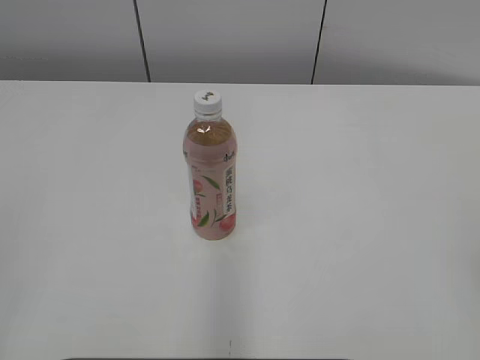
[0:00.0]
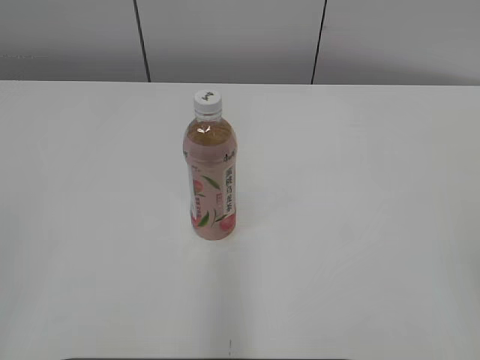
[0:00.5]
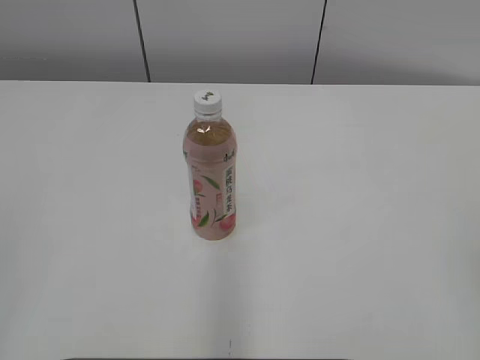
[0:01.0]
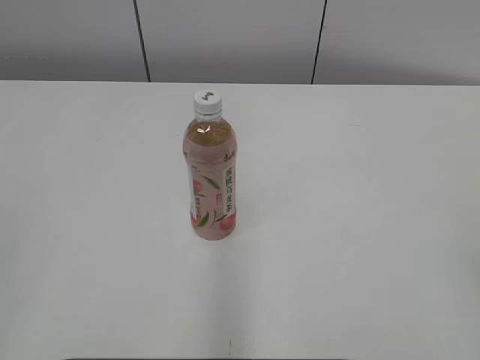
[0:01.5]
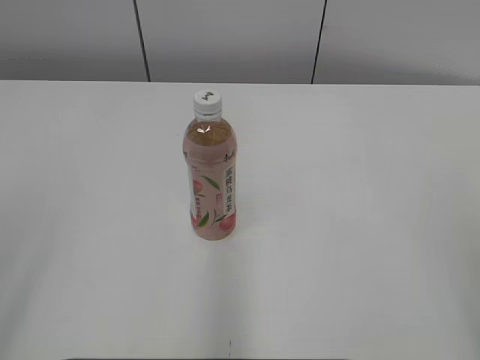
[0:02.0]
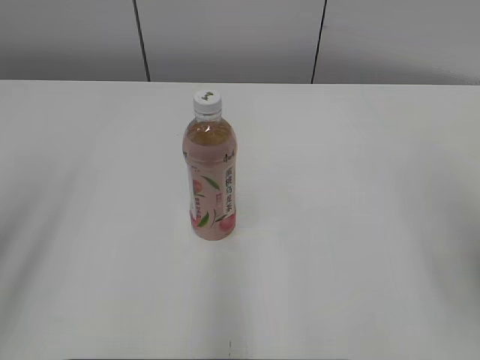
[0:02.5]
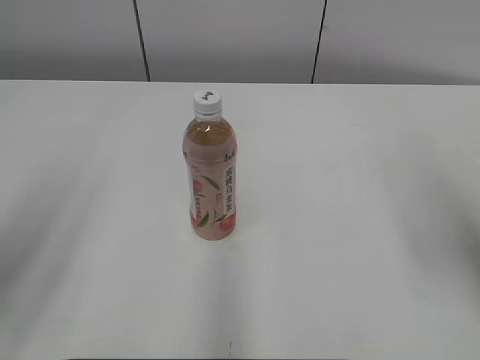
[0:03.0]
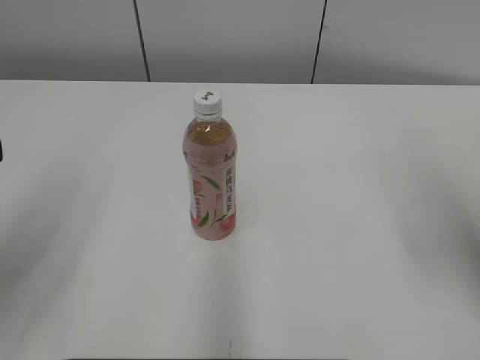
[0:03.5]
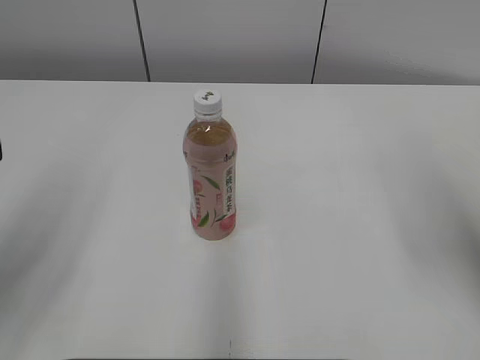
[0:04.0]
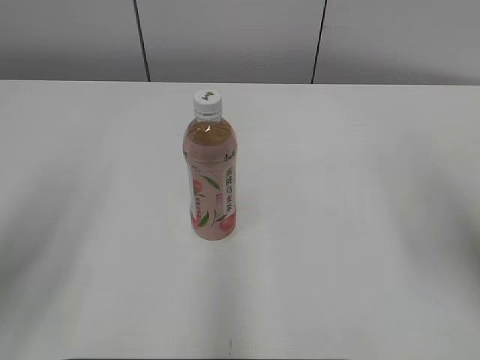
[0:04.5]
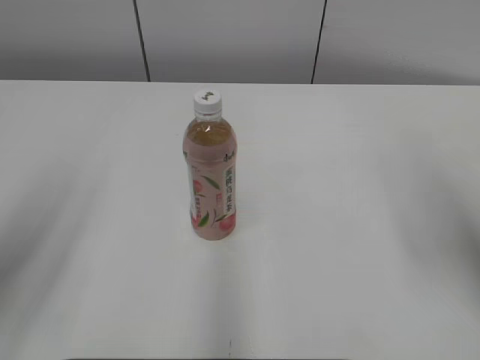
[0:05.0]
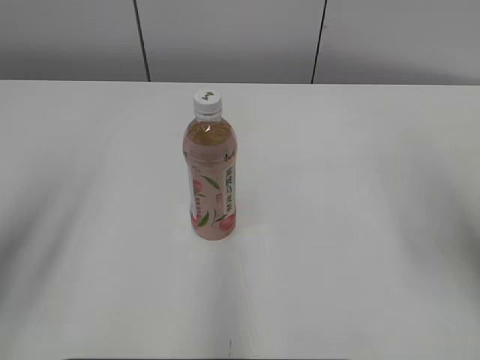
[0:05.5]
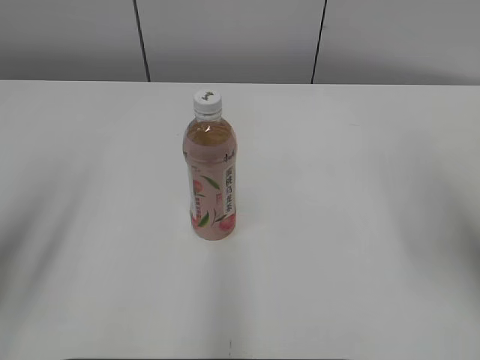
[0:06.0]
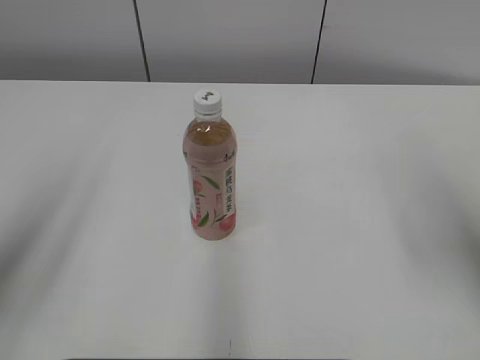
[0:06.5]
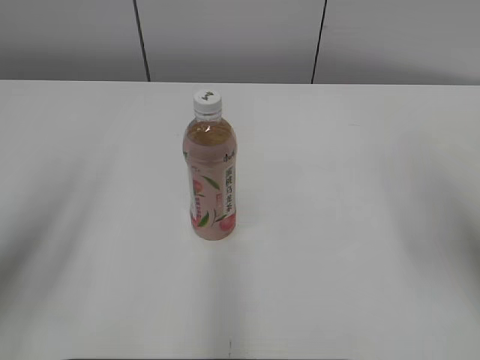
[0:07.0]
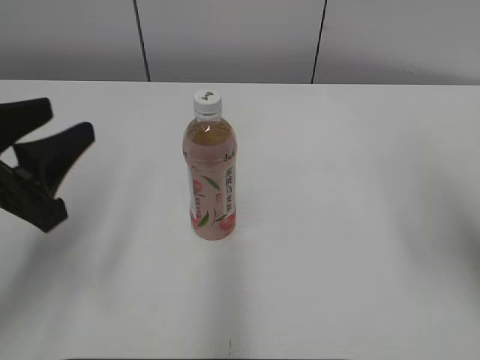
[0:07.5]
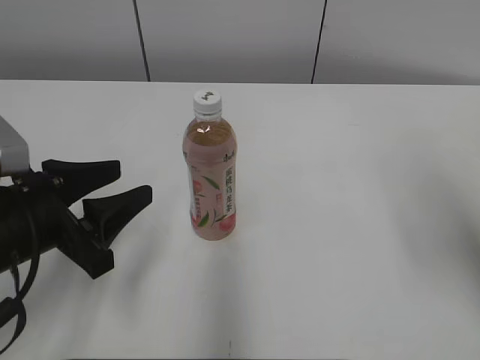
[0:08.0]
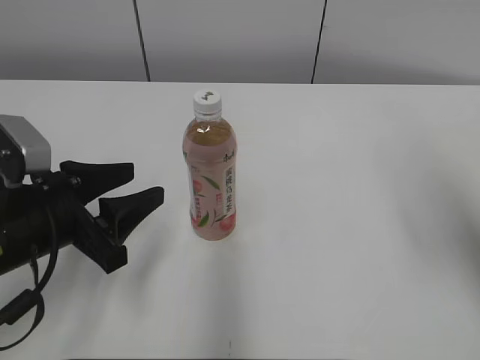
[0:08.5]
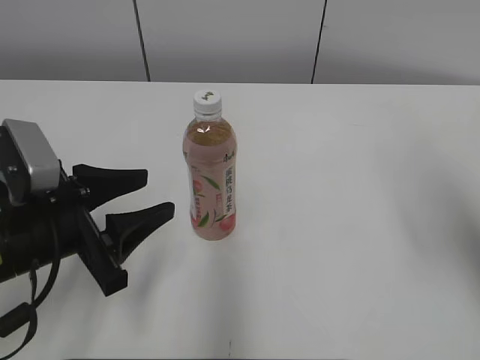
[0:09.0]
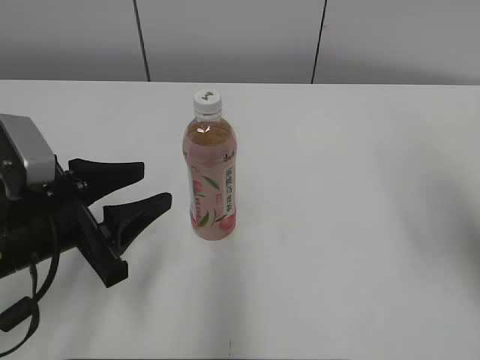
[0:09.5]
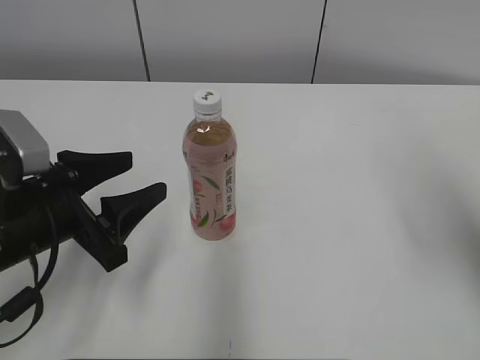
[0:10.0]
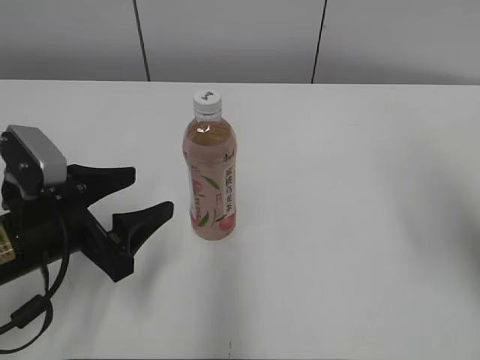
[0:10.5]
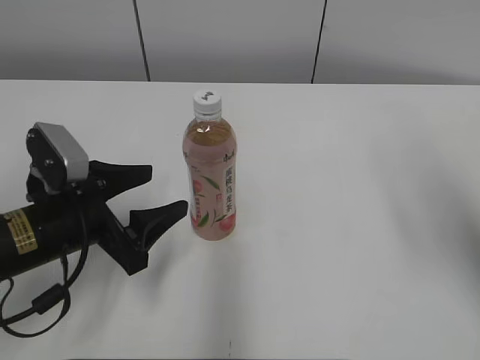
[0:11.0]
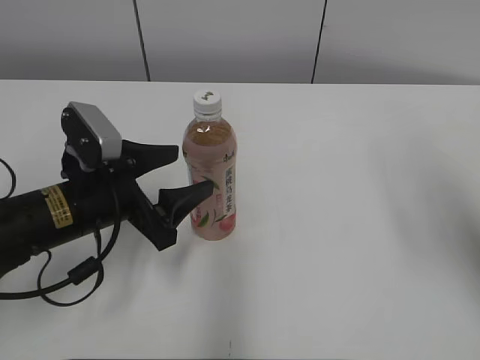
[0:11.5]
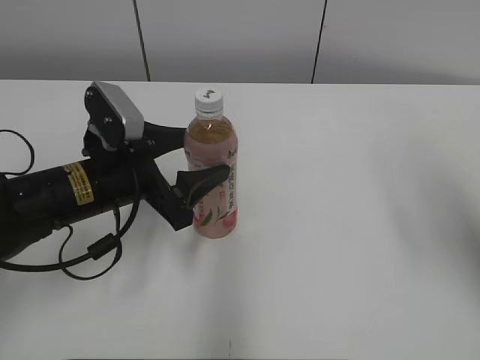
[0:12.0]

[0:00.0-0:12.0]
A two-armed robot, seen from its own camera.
0:02.0 to 0:04.0: The left gripper travels forward and downward by roughly 10 cm. Meanwhile the right gripper travels forward by about 15 cm.
0:06.0 to 0:08.0: The left gripper goes some 15 cm downward, to the right and forward.
0:08.0 to 0:10.0: The grippers stay close to where they were, moving slightly.
0:10.0 to 0:12.0: The left gripper shifts about 5 cm forward.

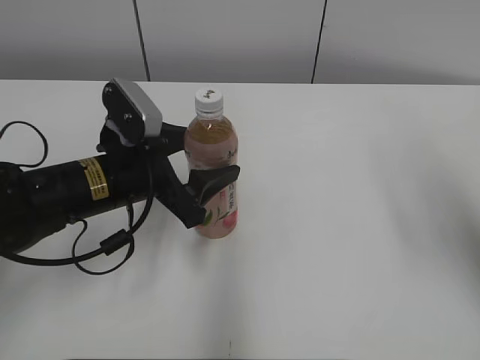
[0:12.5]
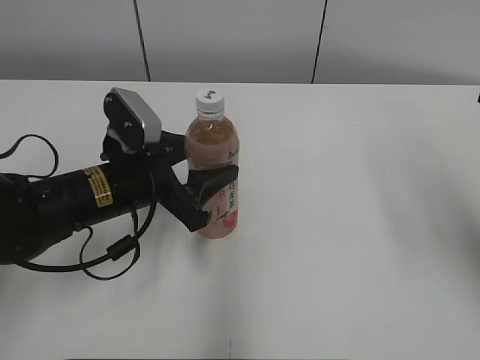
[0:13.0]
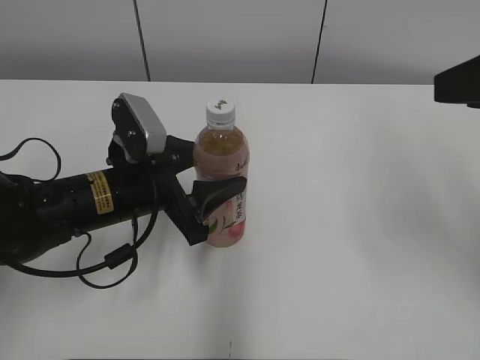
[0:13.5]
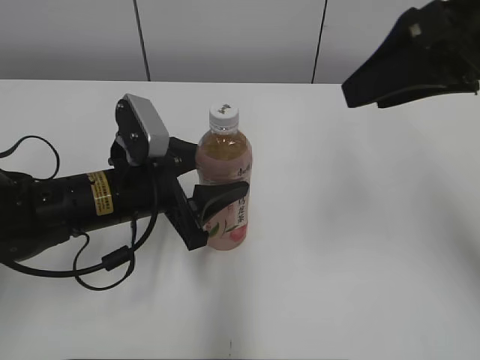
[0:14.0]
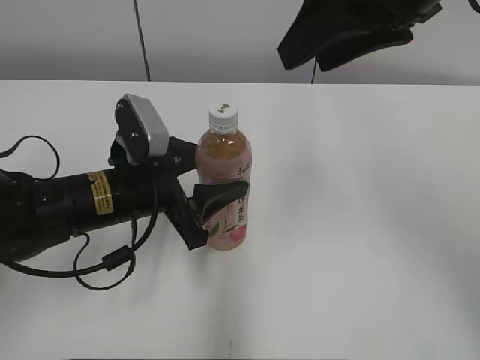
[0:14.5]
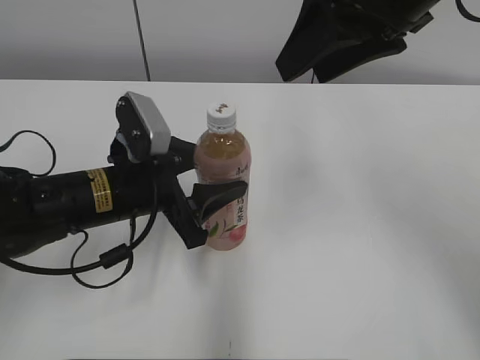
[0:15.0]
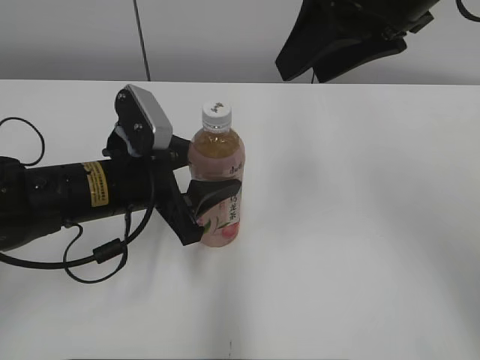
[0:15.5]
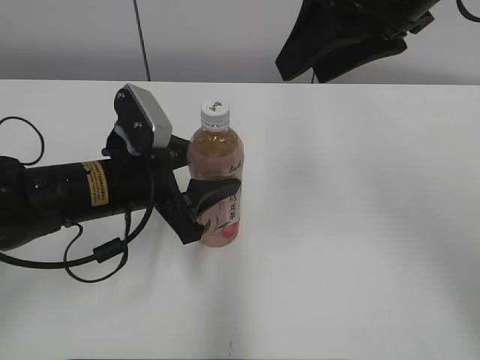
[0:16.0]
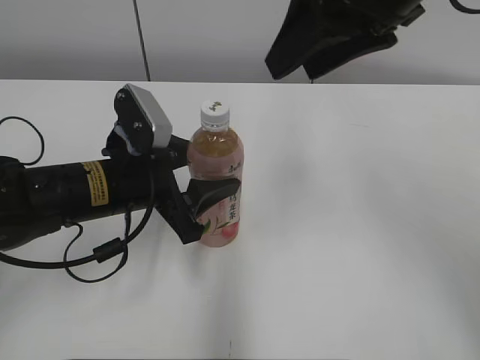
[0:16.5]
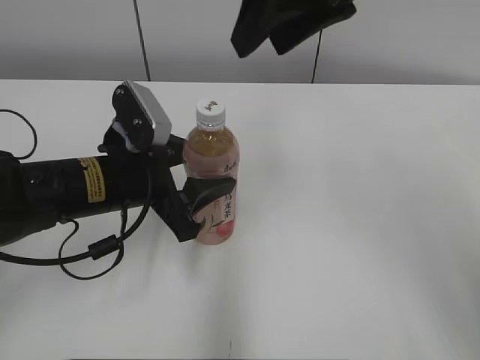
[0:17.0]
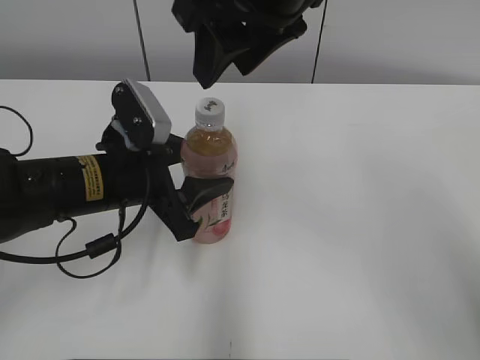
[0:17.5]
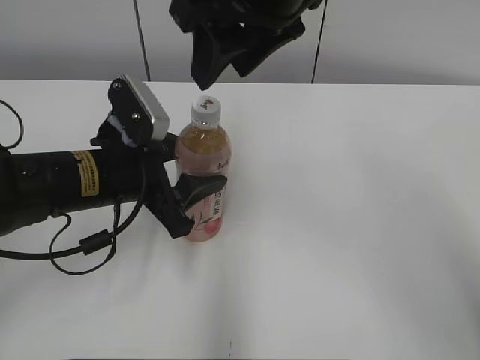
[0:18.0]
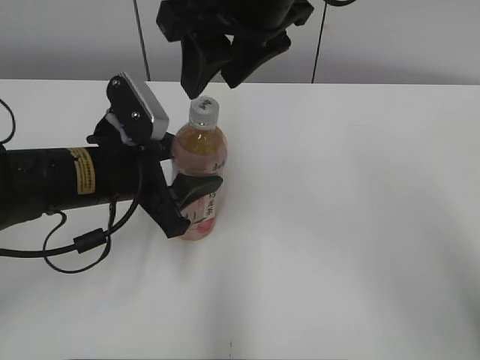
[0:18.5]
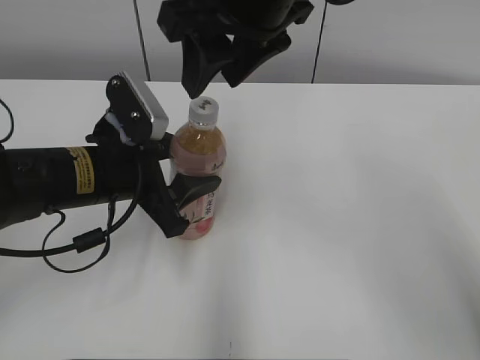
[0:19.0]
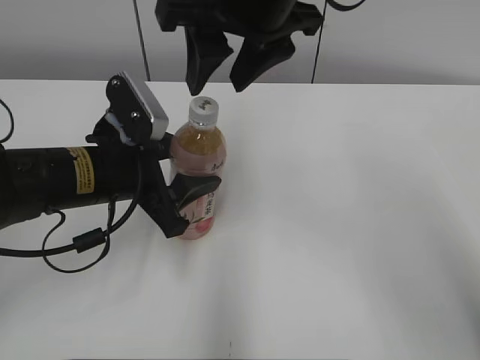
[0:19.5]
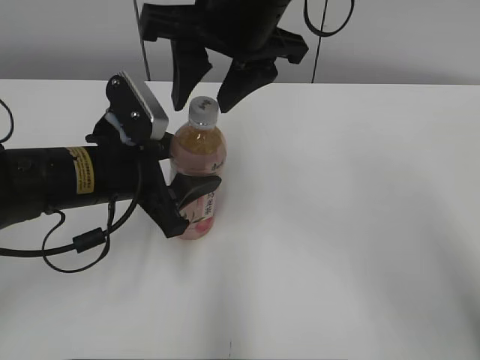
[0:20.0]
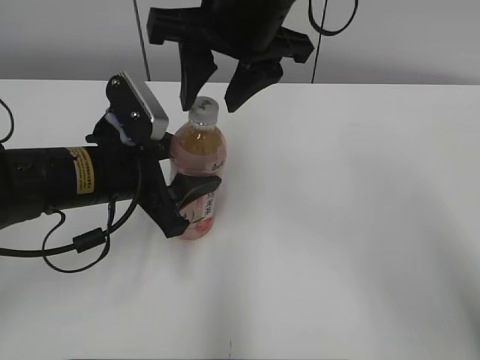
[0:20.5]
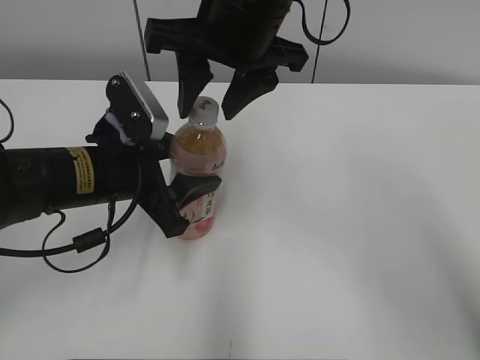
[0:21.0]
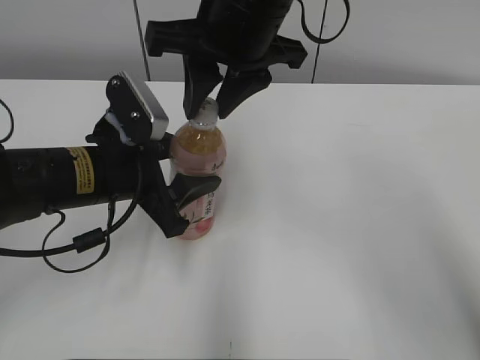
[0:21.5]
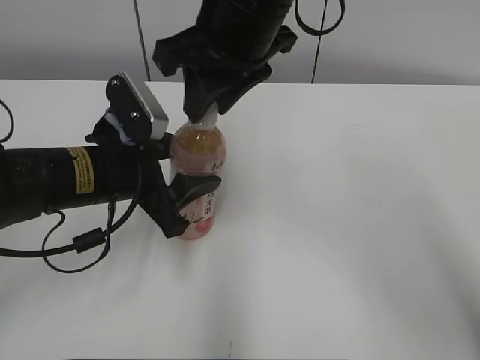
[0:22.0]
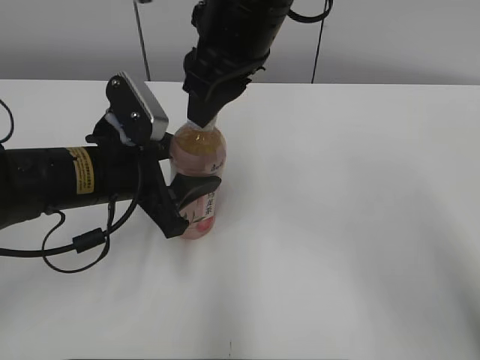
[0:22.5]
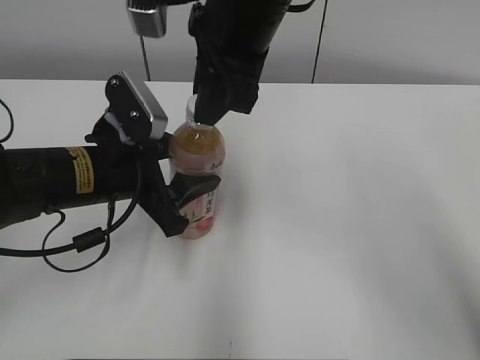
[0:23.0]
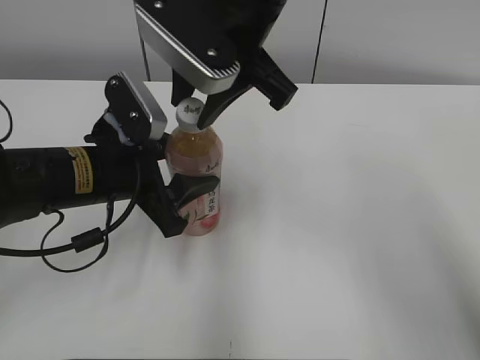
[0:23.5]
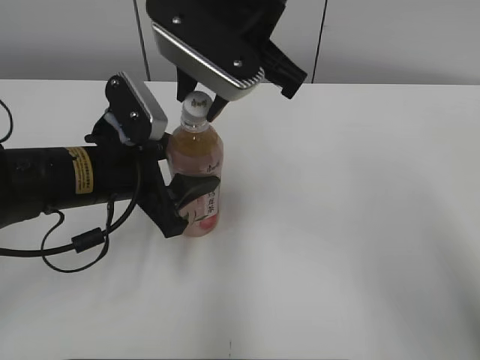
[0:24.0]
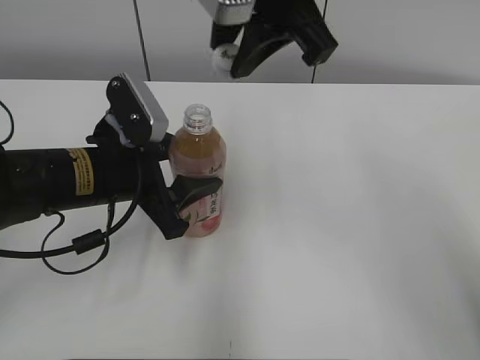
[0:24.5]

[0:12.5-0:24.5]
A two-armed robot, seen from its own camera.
0:12.5 to 0:14.5: The right gripper goes roughly 20 cm to the left, forward and upward.
0:14.5 to 0:16.5: There are only small adjustments of the grippers.
0:16.5 to 0:18.5: The right gripper travels to the left by roughly 10 cm.
0:20.5 to 0:22.5: The right gripper closes up.
0:22.5 to 0:24.5: The right gripper changes place by approximately 5 cm.

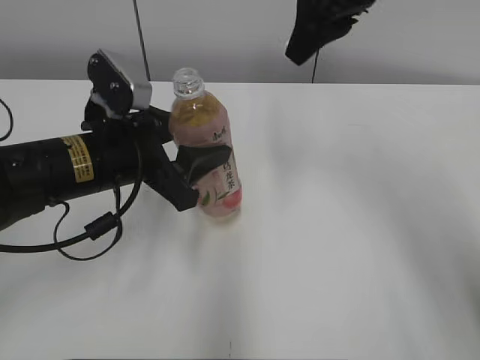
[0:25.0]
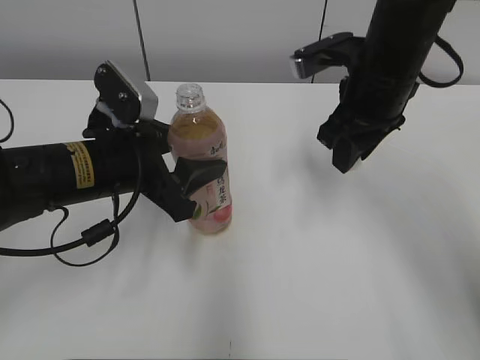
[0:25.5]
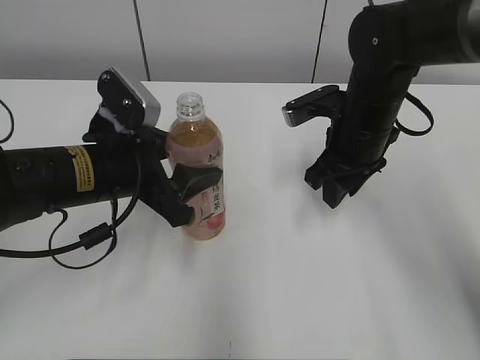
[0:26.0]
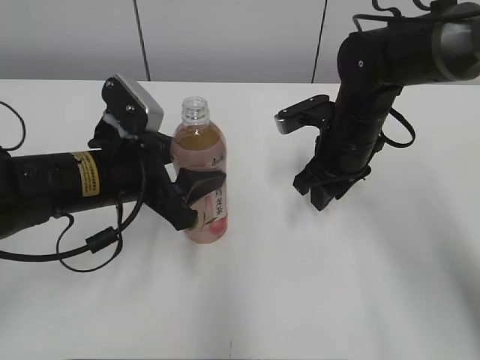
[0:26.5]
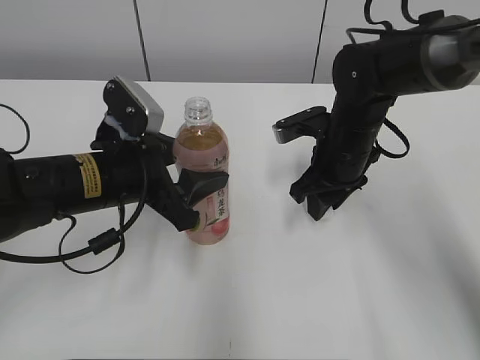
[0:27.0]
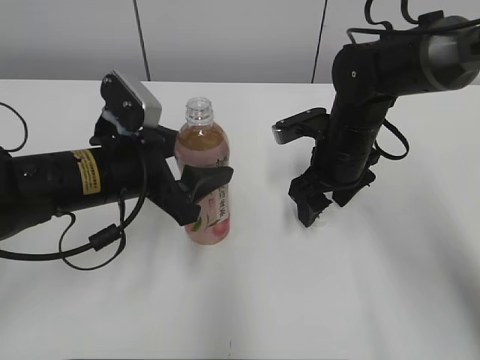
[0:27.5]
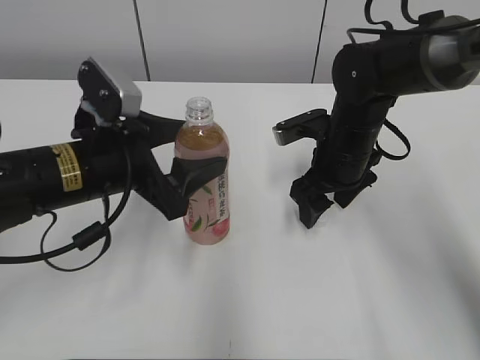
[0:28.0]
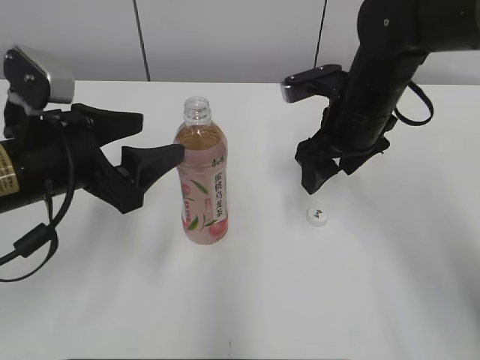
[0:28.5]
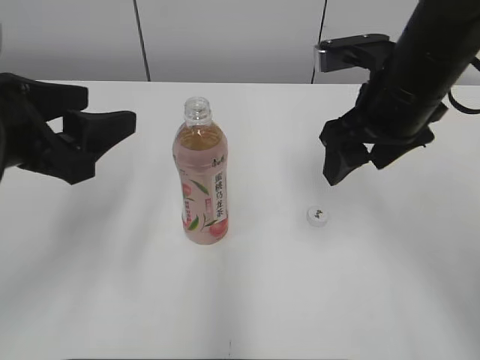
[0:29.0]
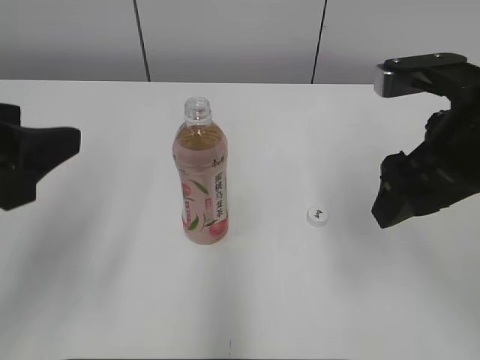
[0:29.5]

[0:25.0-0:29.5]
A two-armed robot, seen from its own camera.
Step, 0:25.0 to 0:27.5: Place the bottle cap on the right.
0:25.0 to 0:27.0: The right gripper goes about 20 cm downward.
0:27.0 to 0:29.5: The left gripper is displaced upward, backward and to the left by about 20 cm, while the right gripper travels upward and backward by some 20 cm, and opens its fingers.
